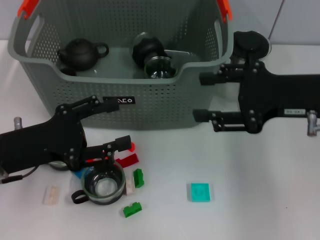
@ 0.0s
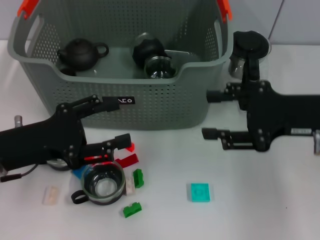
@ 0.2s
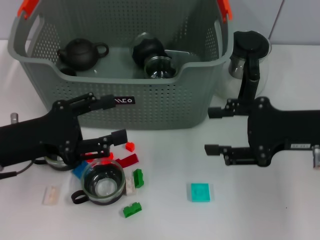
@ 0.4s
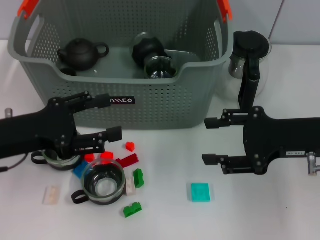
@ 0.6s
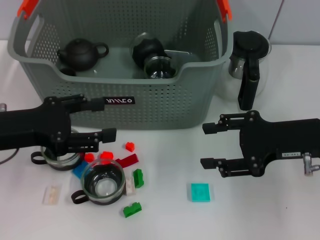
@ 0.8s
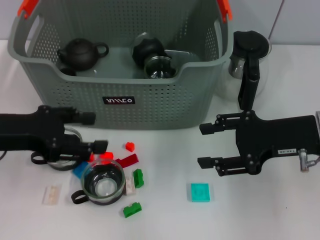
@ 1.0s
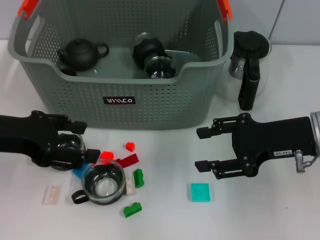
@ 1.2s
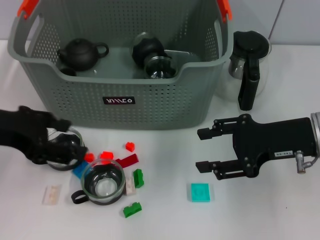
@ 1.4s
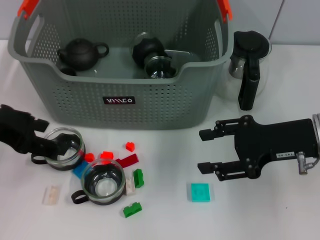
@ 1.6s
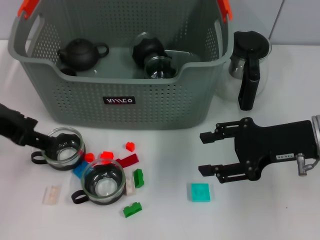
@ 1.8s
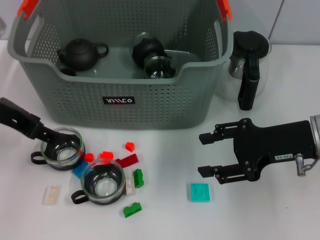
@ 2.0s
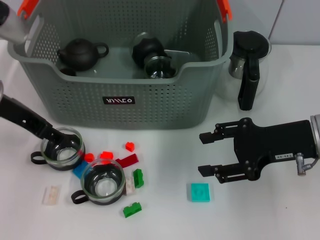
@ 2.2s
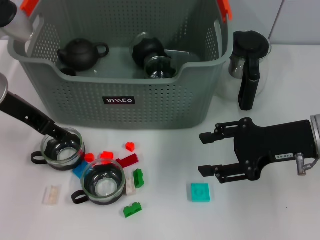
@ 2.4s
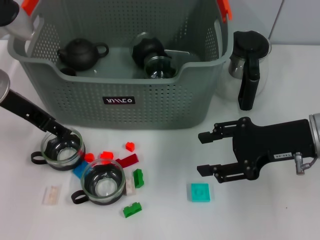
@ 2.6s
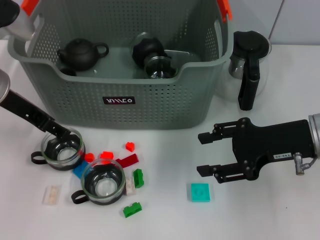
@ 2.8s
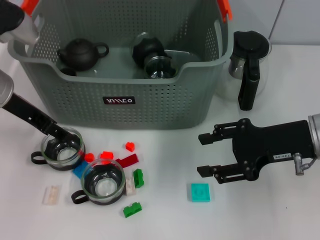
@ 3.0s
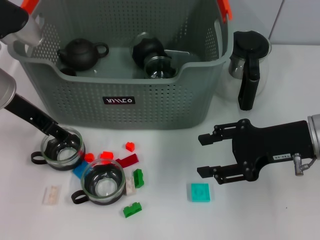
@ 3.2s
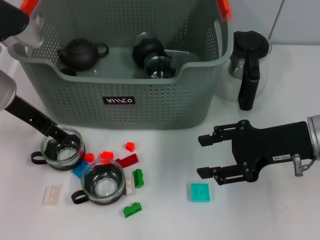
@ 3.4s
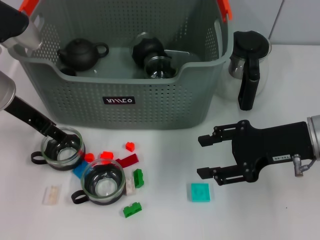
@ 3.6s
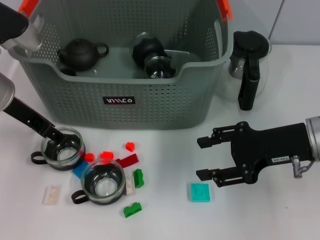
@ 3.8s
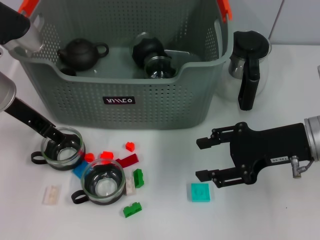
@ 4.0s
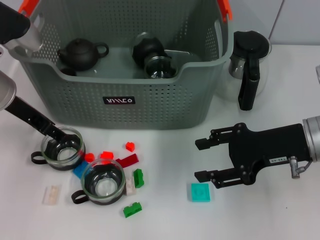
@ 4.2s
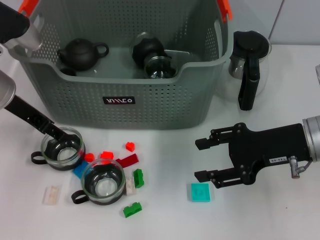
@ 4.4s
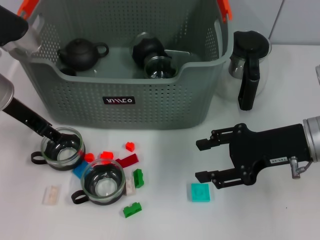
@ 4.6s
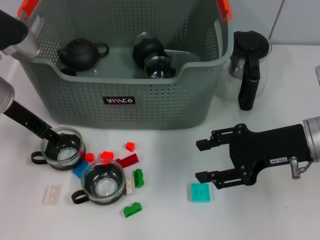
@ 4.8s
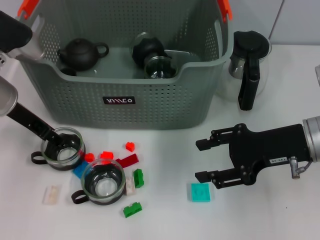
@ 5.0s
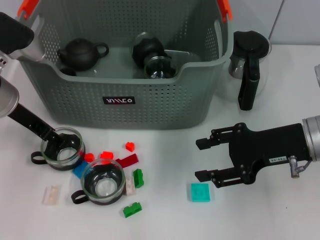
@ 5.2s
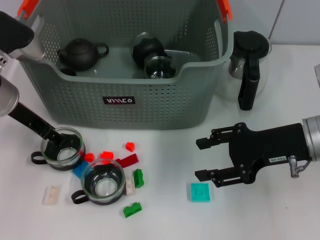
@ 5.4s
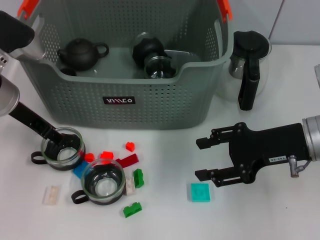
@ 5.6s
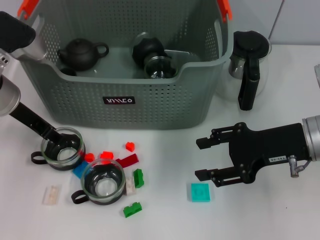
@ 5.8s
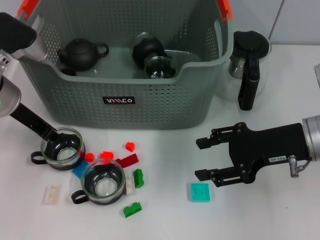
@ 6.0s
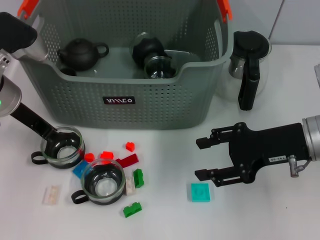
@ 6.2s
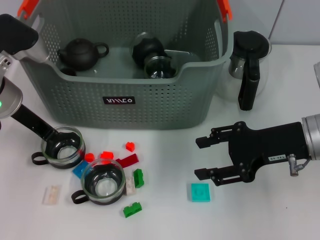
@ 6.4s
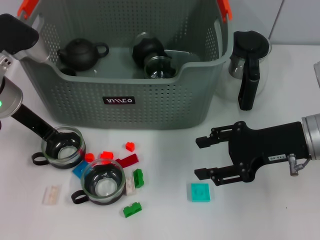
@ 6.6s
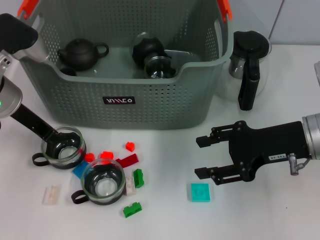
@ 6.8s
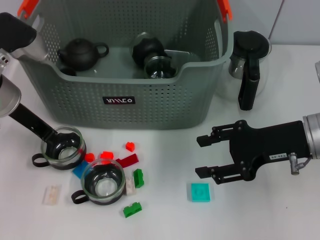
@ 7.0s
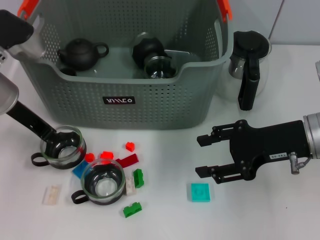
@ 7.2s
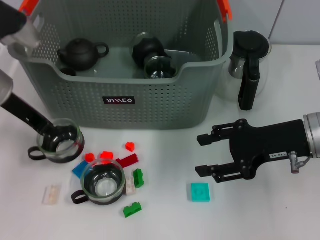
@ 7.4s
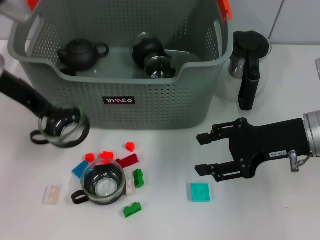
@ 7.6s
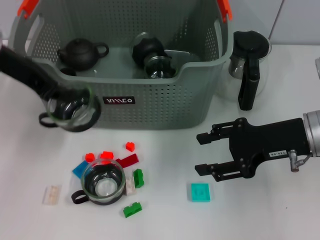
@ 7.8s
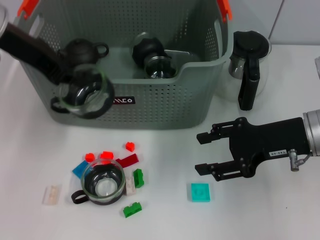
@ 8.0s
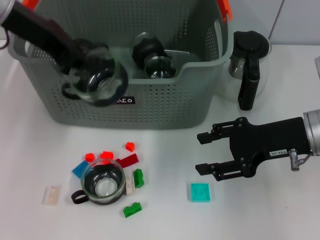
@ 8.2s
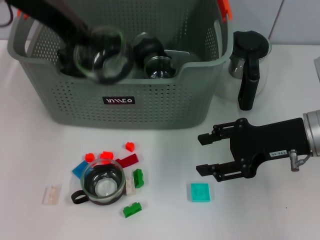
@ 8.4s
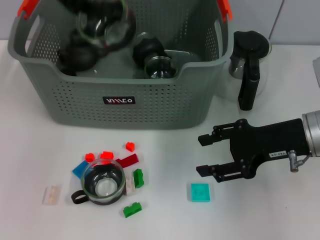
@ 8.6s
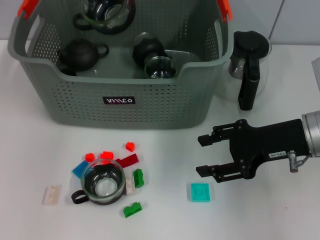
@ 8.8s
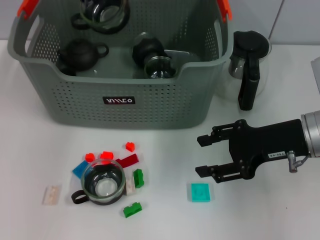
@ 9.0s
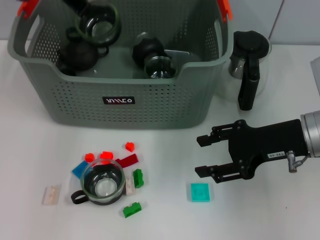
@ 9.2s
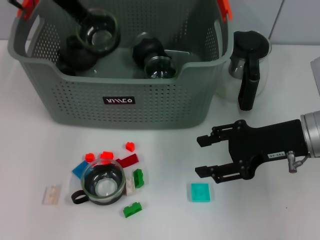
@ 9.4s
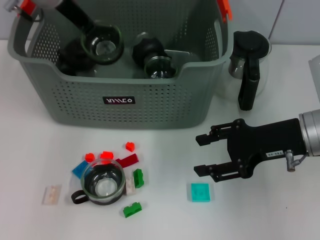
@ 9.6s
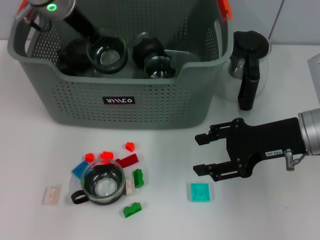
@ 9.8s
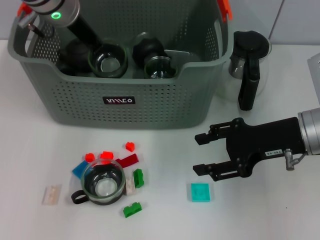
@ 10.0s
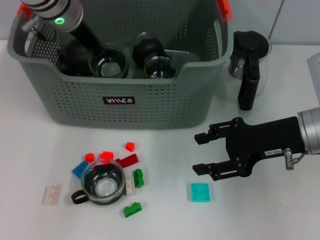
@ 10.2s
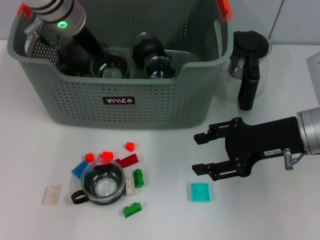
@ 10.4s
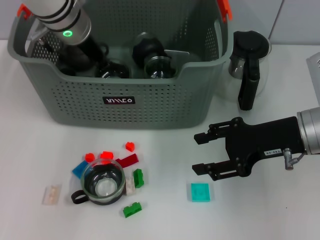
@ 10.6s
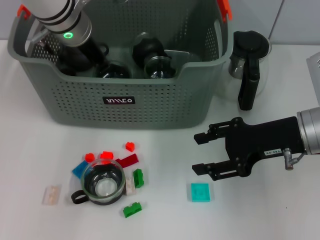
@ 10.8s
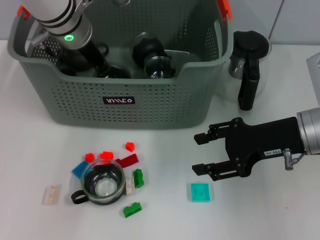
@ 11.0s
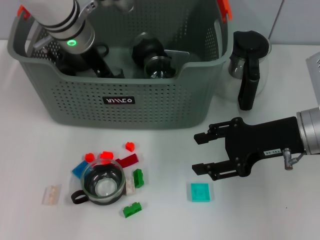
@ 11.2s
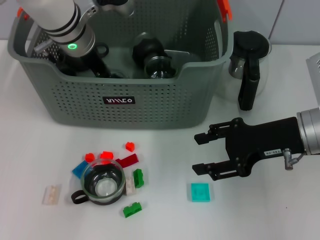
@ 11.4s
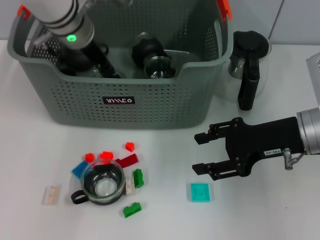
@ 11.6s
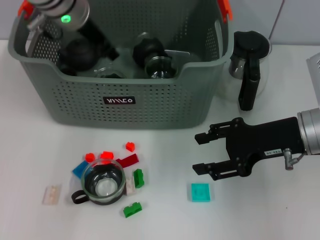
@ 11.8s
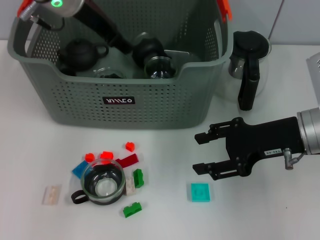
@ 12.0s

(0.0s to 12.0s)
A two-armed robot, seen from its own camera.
Task of the whole recording: pick up the teacup on the table and place it into the storage bin, pick up the block on the table and place it into the storage bin.
Step, 0.0s - 6.4s: Grasp the cup with left gripper.
Step, 6.8s - 11.4s: Place the cup in the storage box with left gripper.
0.0s - 1.6s: The right gripper travels downward by about 5 cm. Meanwhile the left gripper goes some 10 cm upward.
1.6s - 3.0s: The left gripper goes roughly 10 cm forward.
3.0s - 4.4s: The grippers stay close to where they were, moving slightly.
4.4s - 6.0s: The left gripper closes up.
6.0s - 7.6s: The left gripper moves upward, approximately 5 cm, and closes up.
7.6s - 9.0s: The left gripper moves upward, forward and to the right, roughly 15 cm.
9.0s - 10.4s: The left gripper travels downward by some 10 cm.
10.4s - 12.0s: The left gripper ends up roughly 5 cm from where it was, and opens up.

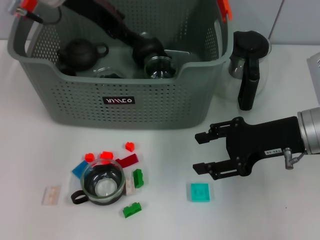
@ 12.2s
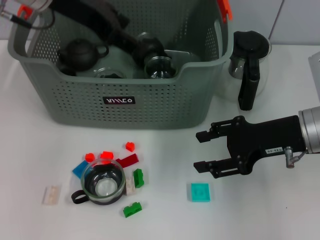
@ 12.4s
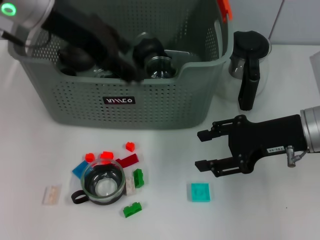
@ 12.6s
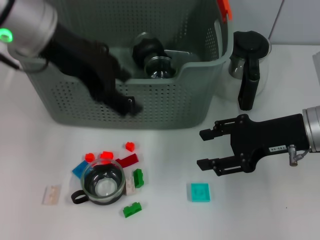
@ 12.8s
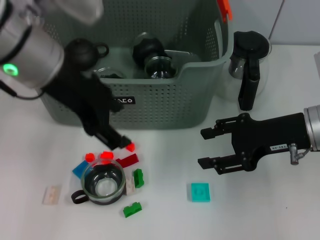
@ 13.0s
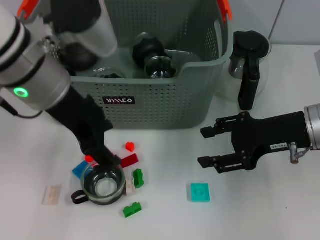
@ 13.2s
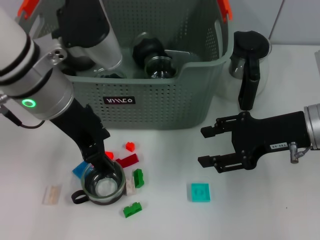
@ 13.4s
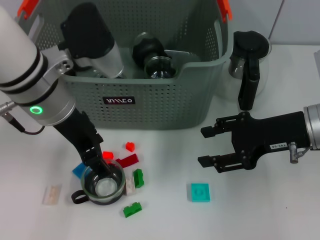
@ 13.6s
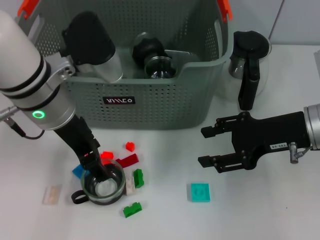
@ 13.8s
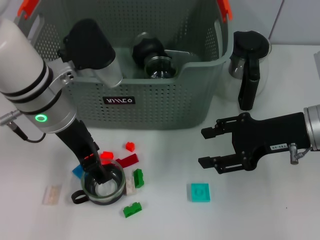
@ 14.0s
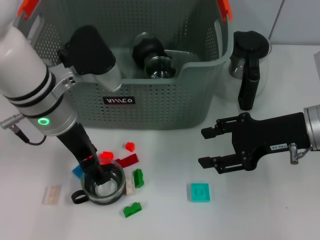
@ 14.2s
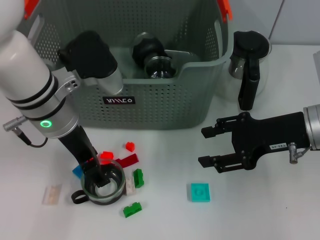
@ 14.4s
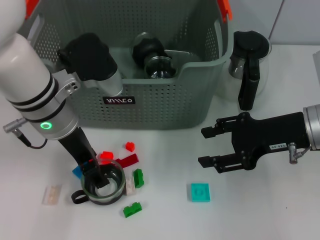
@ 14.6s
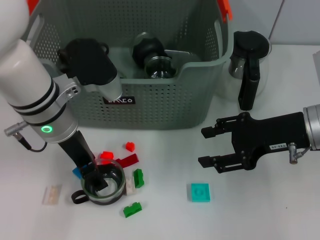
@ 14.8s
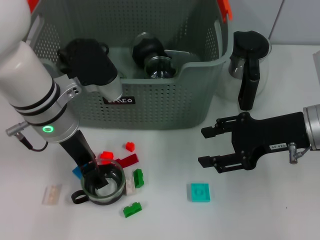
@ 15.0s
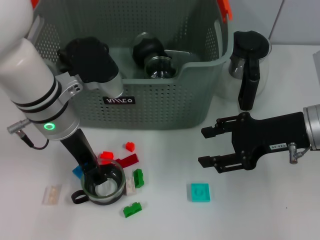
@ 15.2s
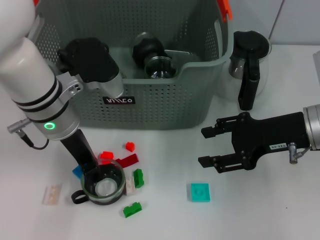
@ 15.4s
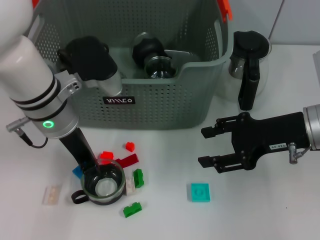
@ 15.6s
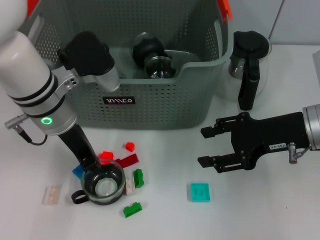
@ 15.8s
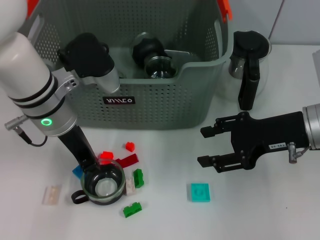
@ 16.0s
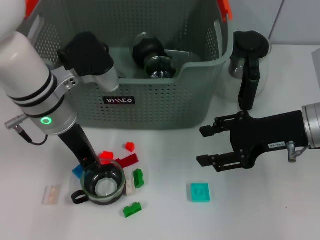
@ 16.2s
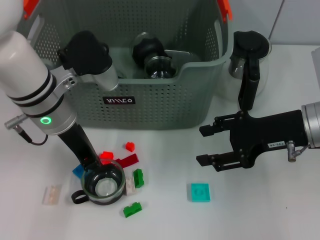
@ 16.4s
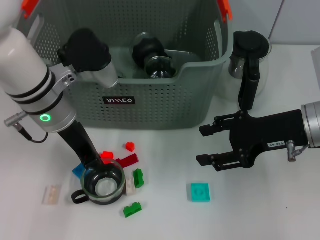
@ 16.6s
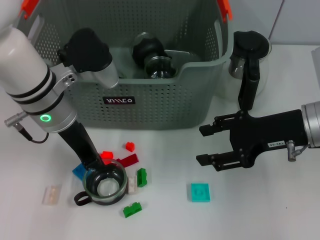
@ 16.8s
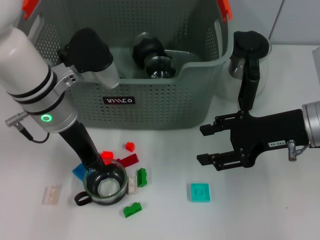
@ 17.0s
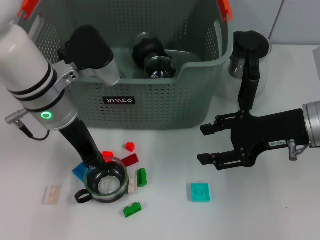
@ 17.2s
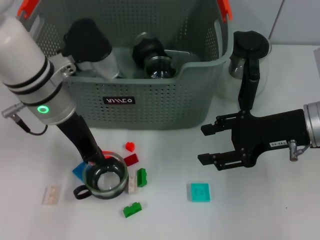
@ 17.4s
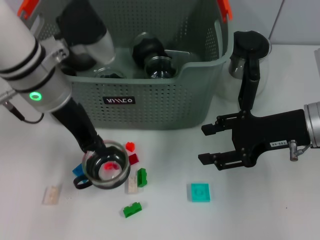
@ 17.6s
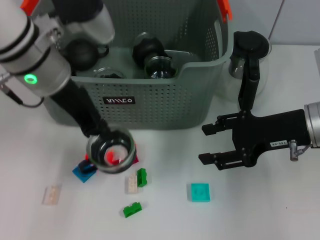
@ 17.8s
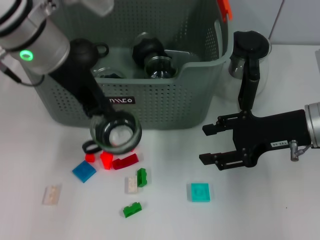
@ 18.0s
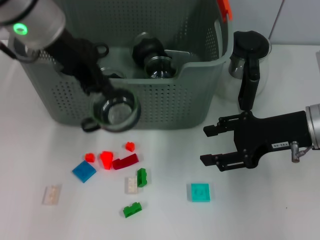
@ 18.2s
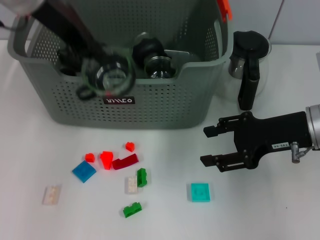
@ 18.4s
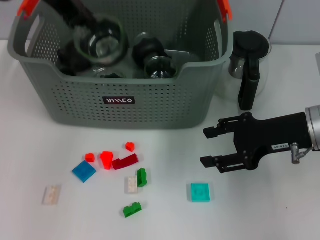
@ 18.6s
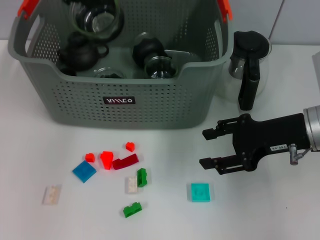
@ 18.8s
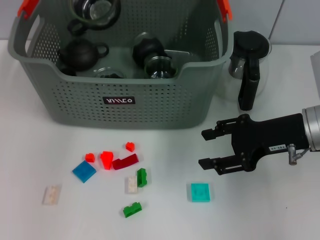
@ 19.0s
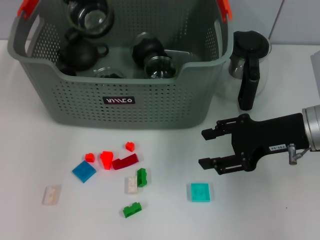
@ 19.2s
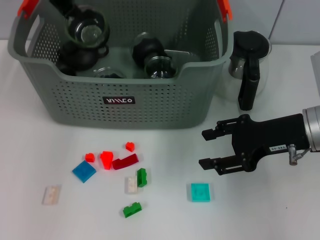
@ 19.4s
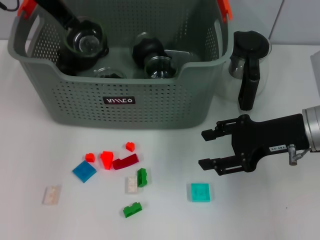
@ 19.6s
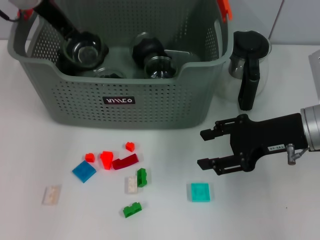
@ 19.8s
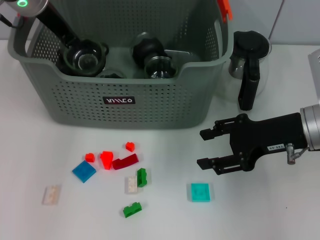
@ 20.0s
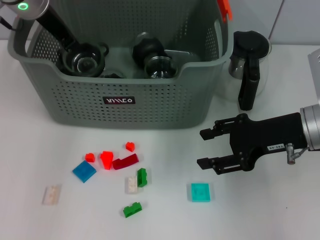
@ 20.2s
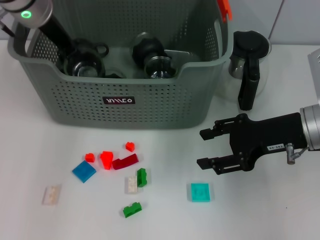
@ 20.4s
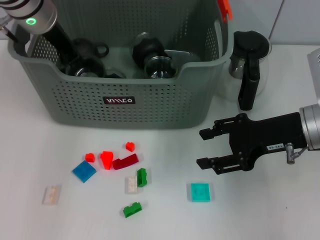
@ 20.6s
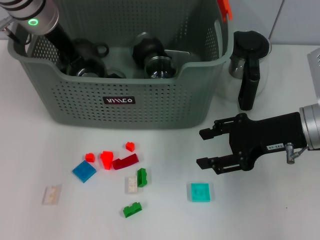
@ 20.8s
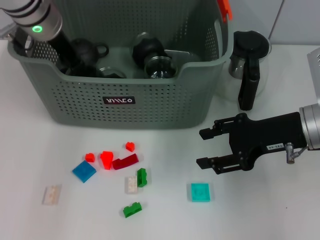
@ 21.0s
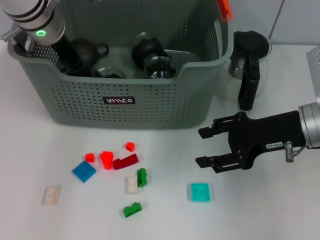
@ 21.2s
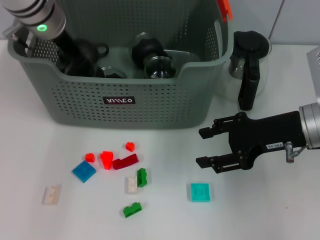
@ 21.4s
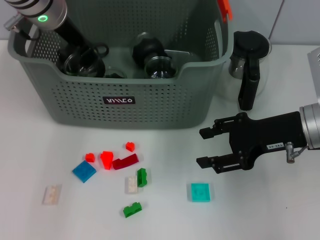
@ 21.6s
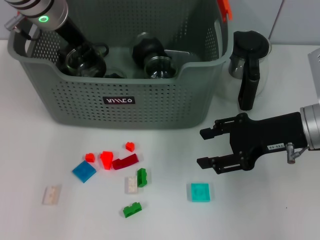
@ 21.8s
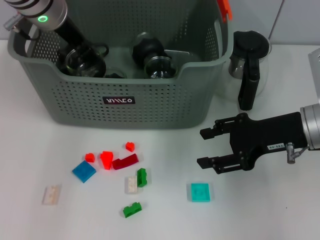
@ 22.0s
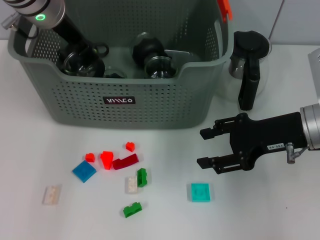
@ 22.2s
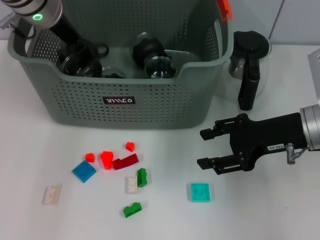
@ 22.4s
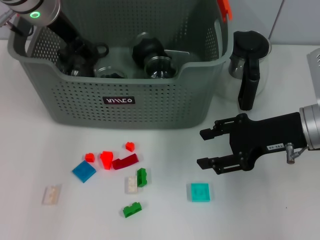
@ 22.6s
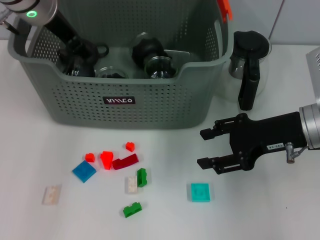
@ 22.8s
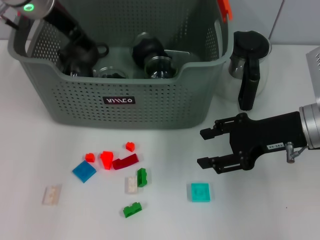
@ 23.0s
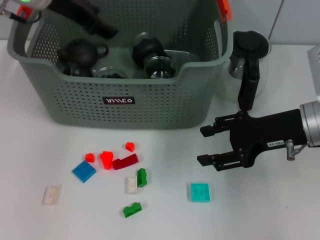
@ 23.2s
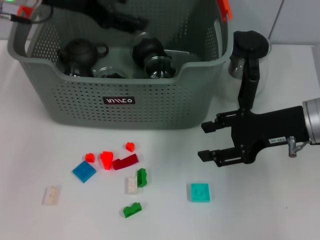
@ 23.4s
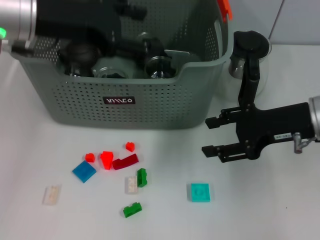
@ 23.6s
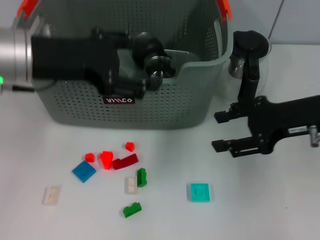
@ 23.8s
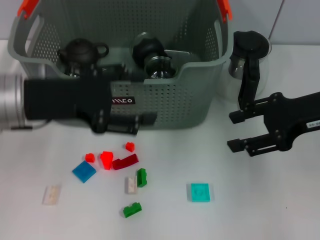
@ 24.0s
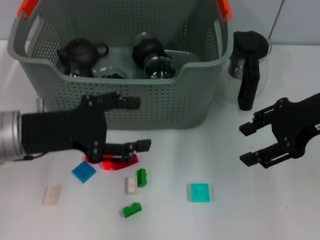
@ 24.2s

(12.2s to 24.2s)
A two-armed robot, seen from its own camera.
Task of the whole recording: pick up the teacup on the table and place it into the storage bin, pick up the block on the table and place it into the storage bin.
Step, 12.2s - 16.8s: Grasp the cup with left gripper.
Step, 17.0s - 22.8s: Place the cup in the storage box with left gripper.
12.2s - 13.8s: The left gripper moves backward and downward, some 15 cm.
13.8s - 15.2s: The grippers stay close to where they were, moving slightly.
15.2s - 16.6s: The left gripper closes its fingers.
16.6s - 18.2s: The left gripper goes approximately 10 cm upward.
18.2s - 19.8s: The left gripper moves forward, roughly 10 cm.
19.8s - 21.2s: The left gripper shifts by about 5 cm.
21.2s - 22.6s: The left gripper opens.
22.6s - 24.2s: The left gripper heads backward and downward, covering approximately 20 cm. The right gripper shifts approximately 10 cm upward.
